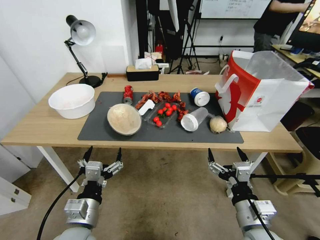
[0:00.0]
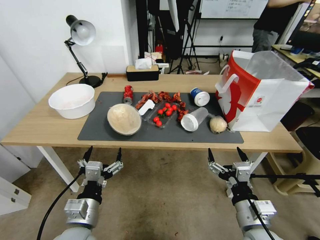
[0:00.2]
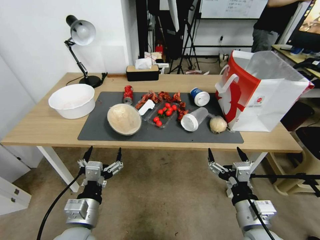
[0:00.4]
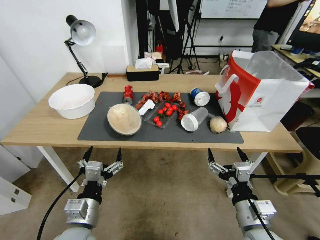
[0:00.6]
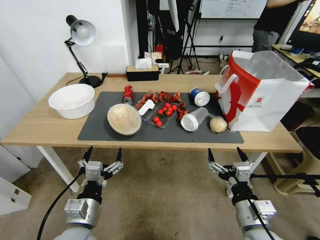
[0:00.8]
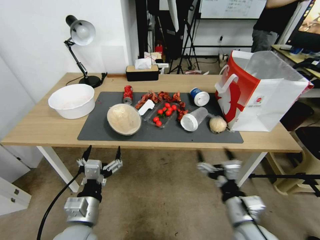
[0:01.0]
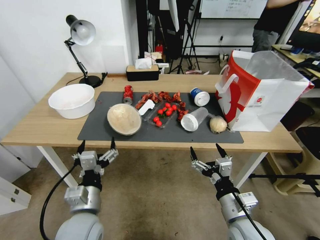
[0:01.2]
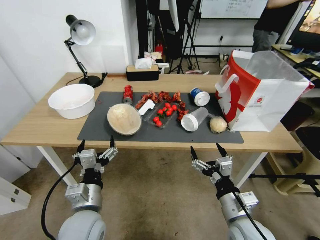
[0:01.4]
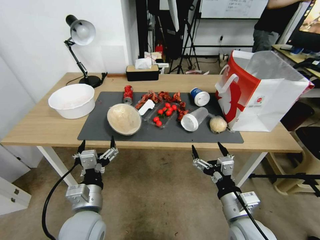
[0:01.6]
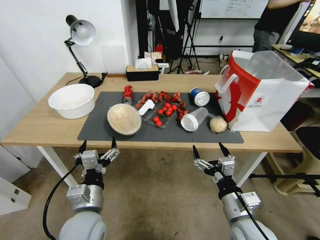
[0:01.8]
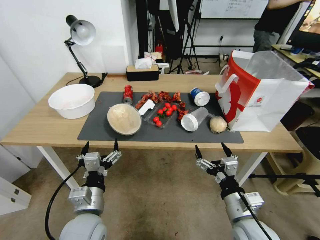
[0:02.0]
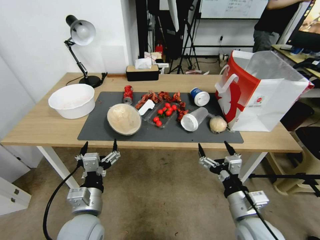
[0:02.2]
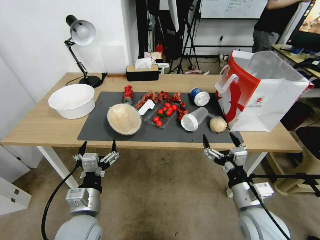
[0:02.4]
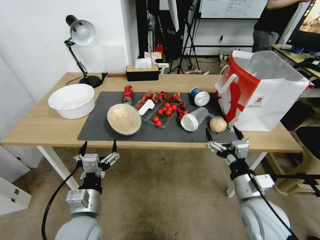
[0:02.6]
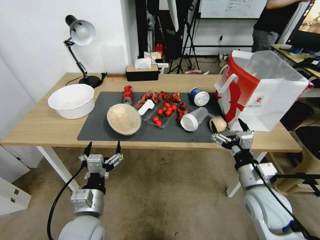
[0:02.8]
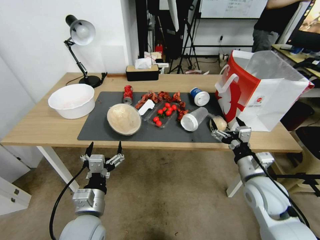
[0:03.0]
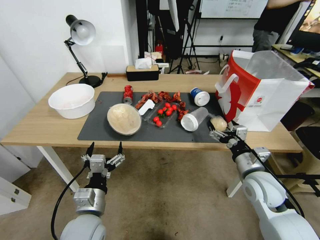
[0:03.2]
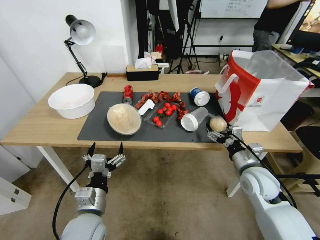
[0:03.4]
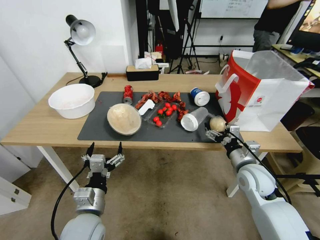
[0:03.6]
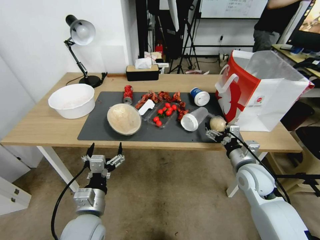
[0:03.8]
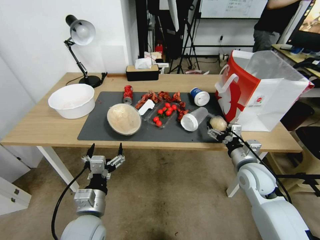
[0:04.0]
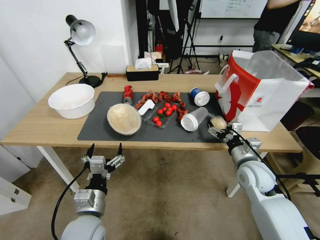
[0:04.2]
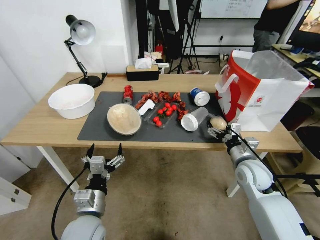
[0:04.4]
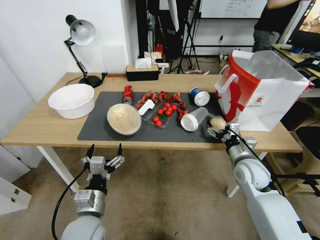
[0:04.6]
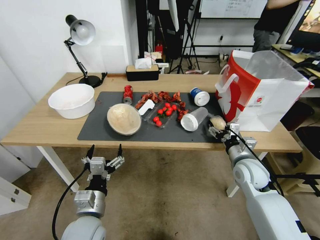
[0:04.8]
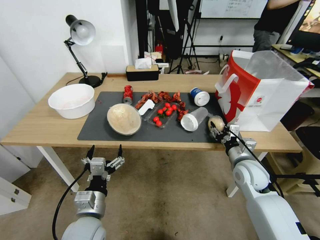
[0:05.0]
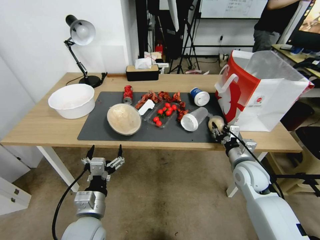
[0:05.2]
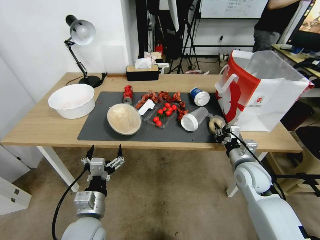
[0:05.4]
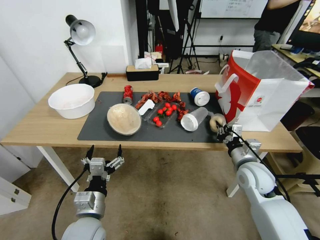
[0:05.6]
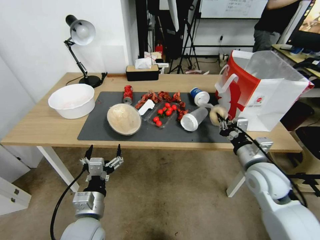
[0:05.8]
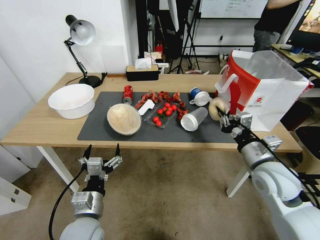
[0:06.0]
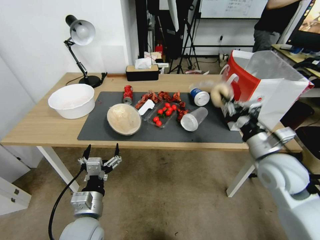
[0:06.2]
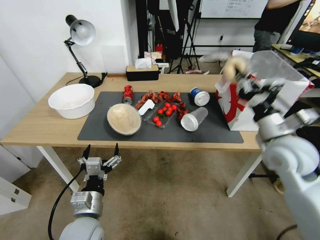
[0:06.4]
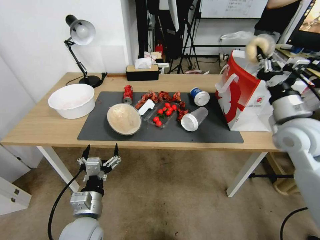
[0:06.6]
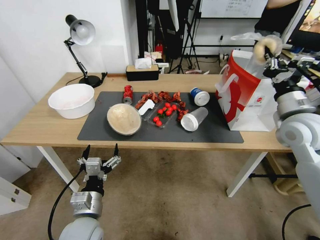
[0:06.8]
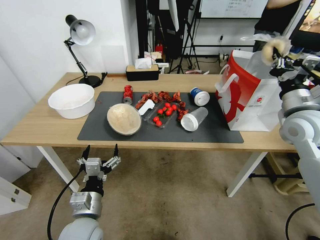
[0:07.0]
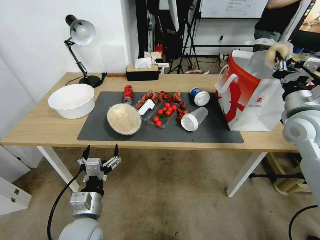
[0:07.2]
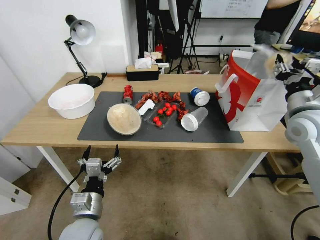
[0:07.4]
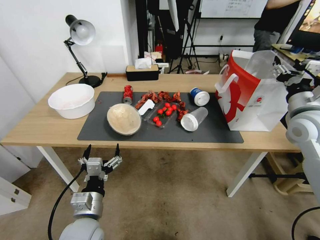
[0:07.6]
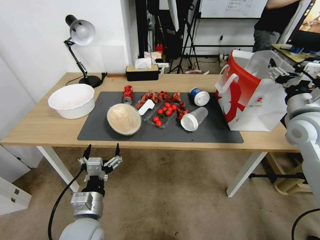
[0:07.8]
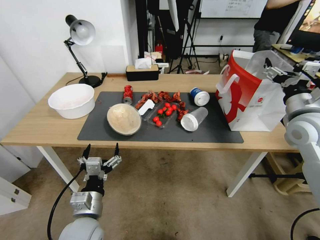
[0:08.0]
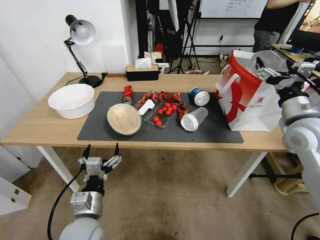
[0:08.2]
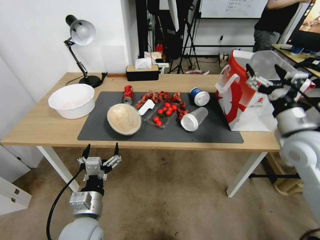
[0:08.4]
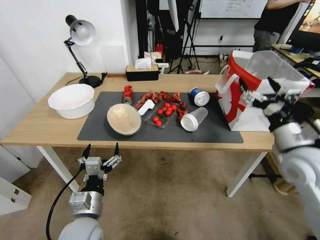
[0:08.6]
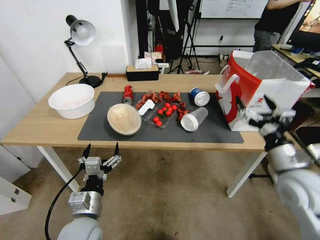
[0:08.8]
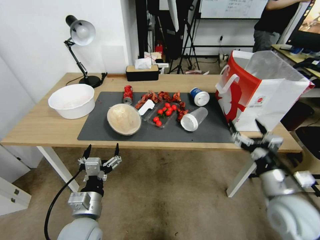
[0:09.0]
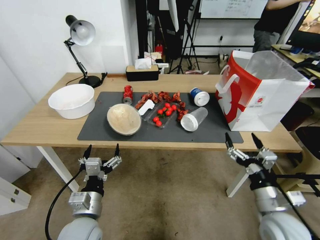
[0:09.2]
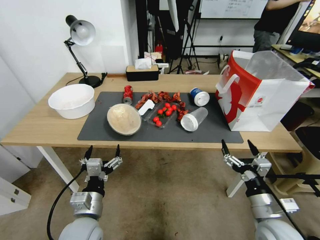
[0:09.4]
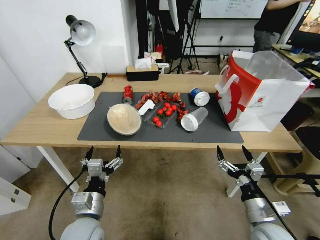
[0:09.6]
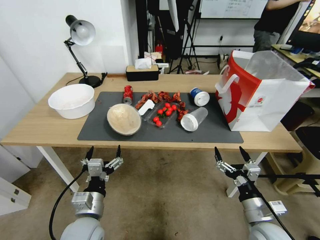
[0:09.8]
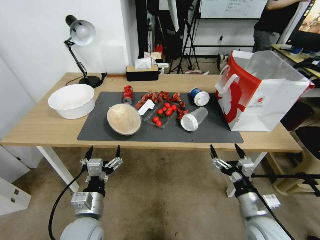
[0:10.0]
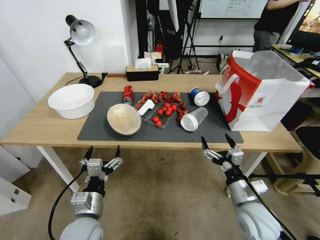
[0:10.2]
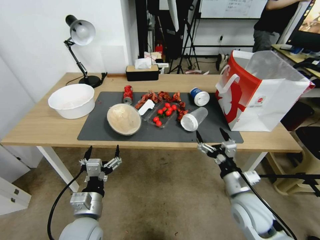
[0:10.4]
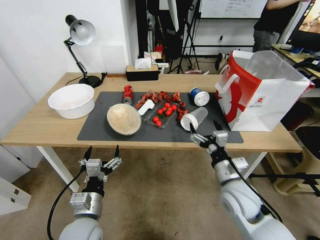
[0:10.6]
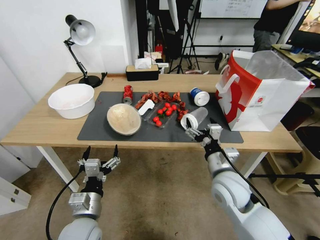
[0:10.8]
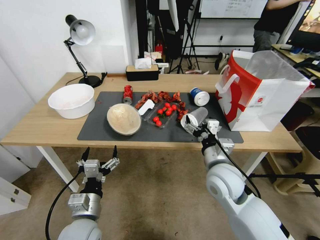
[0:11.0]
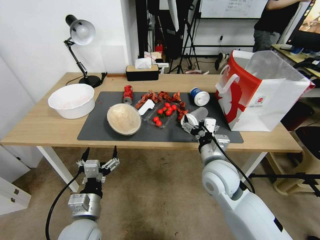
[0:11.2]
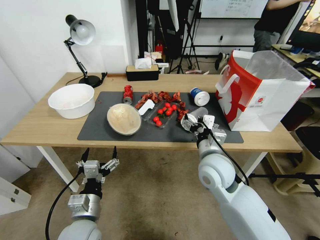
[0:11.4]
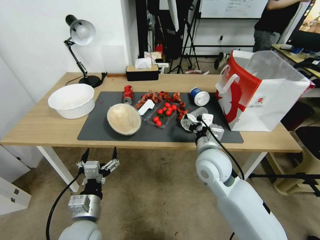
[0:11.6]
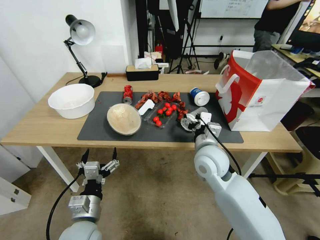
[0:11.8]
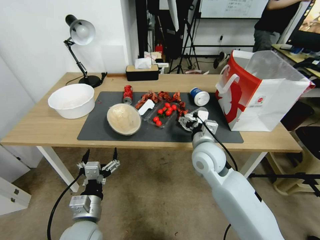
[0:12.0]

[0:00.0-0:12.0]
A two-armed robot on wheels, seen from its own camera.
0:01.6 to 0:03.0: The right gripper shifts approximately 10 cm forward and to the right.
0:03.0 to 0:04.4: The right gripper shifts about 5 cm forward.
0:04.4 to 0:06.0: The right gripper heads upward, covering about 5 cm, and closes.
0:06.0 to 0:07.6: The right gripper heads upward, to the right and forward, covering some 20 cm, and opens its fingers.
0:07.6 to 0:09.0: The right gripper shifts roughly 20 cm backward and downward, and opens up.
0:09.0 to 0:10.4: The right gripper moves downward and to the left, about 10 cm.
0:10.4 to 0:12.0: The right gripper shifts about 25 cm forward, to the left and upward.

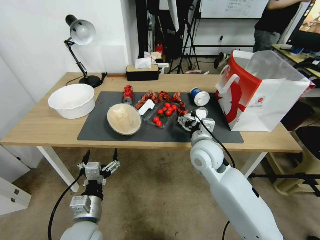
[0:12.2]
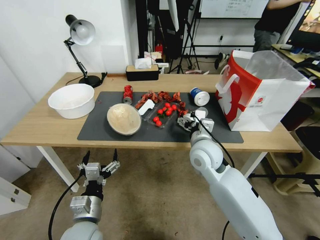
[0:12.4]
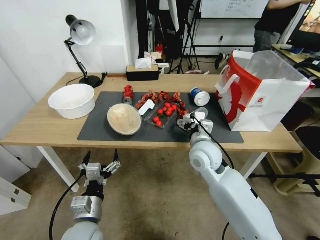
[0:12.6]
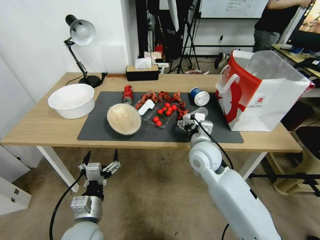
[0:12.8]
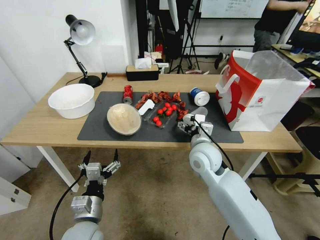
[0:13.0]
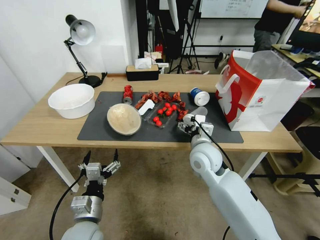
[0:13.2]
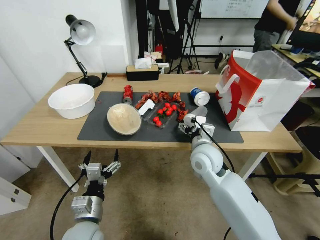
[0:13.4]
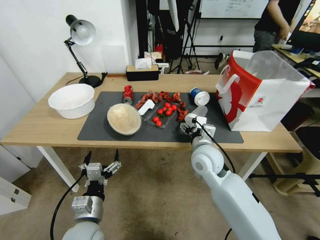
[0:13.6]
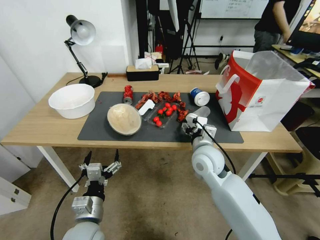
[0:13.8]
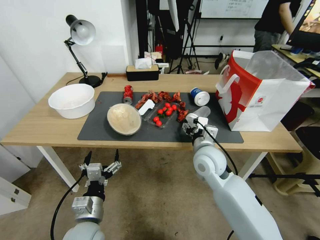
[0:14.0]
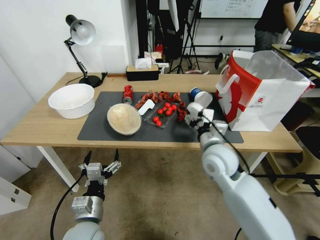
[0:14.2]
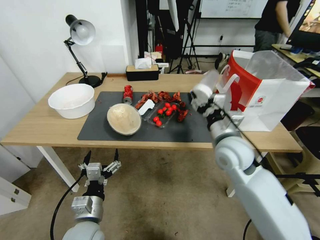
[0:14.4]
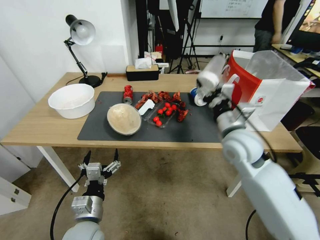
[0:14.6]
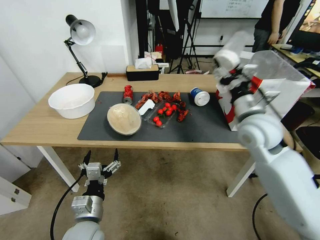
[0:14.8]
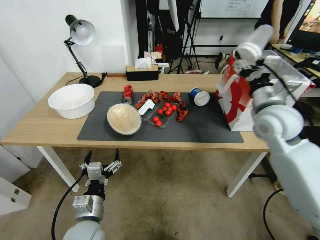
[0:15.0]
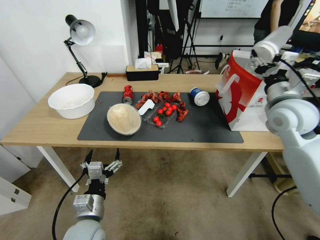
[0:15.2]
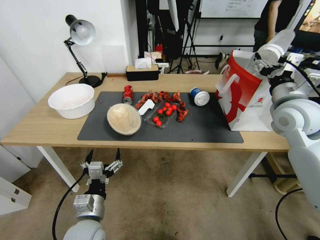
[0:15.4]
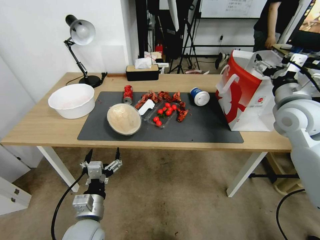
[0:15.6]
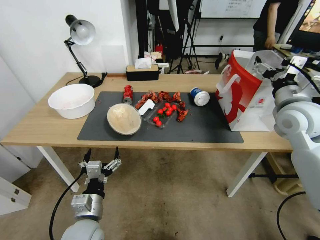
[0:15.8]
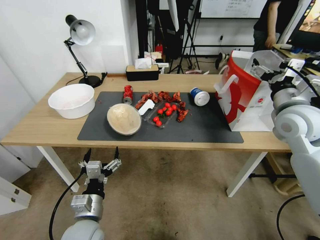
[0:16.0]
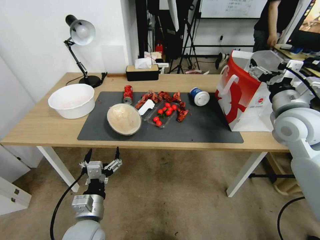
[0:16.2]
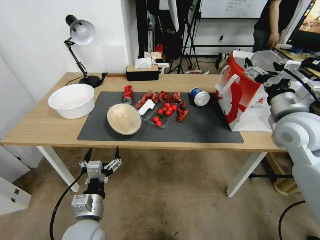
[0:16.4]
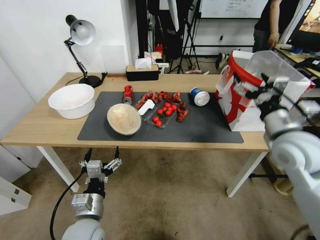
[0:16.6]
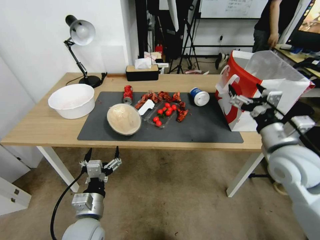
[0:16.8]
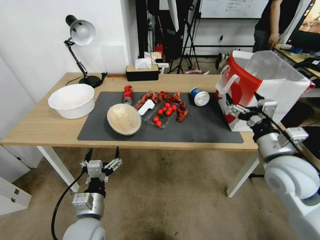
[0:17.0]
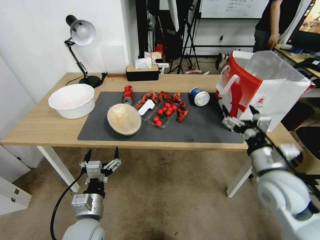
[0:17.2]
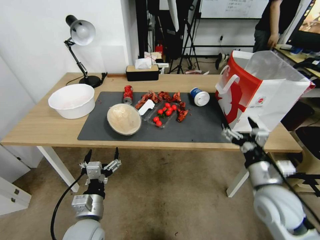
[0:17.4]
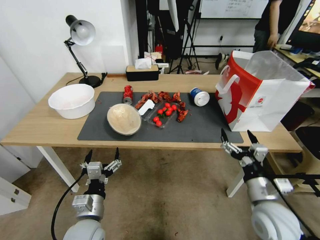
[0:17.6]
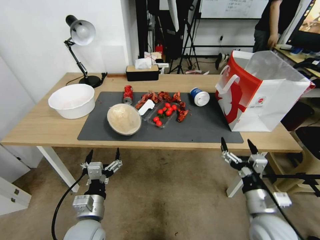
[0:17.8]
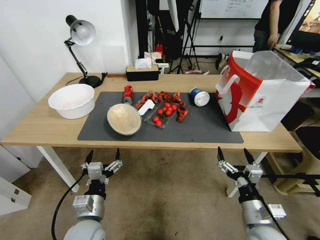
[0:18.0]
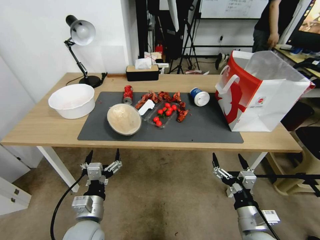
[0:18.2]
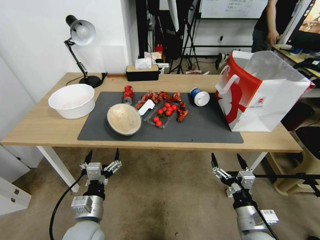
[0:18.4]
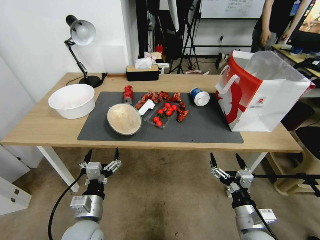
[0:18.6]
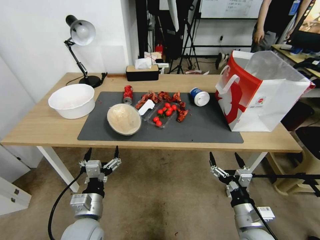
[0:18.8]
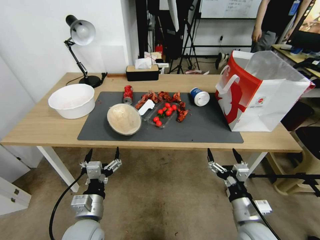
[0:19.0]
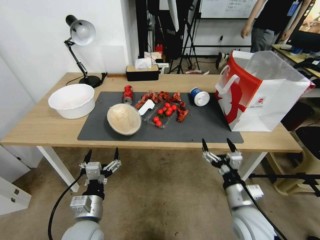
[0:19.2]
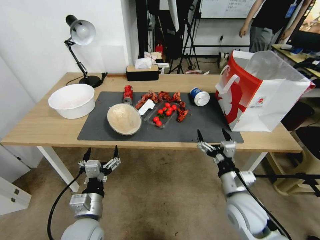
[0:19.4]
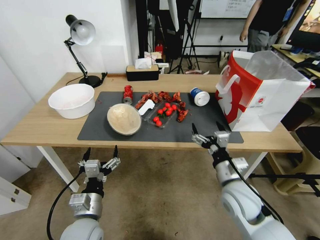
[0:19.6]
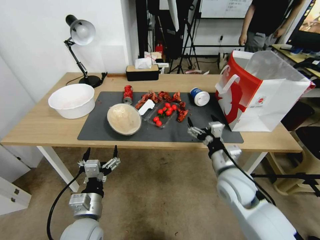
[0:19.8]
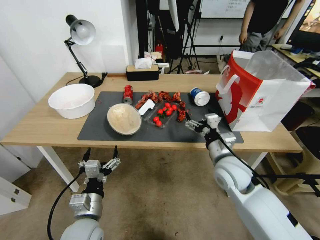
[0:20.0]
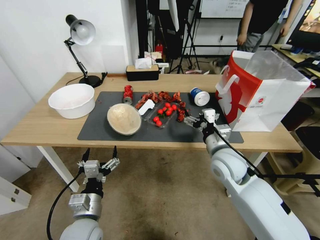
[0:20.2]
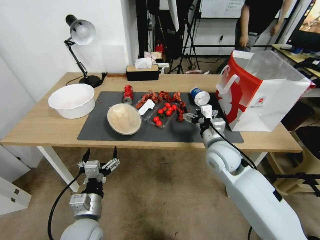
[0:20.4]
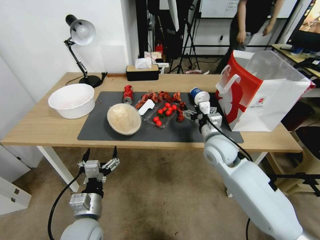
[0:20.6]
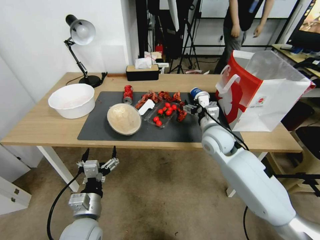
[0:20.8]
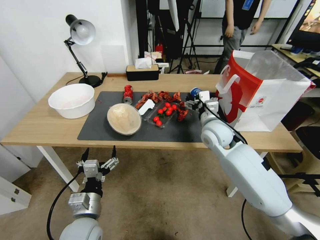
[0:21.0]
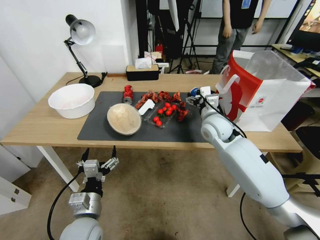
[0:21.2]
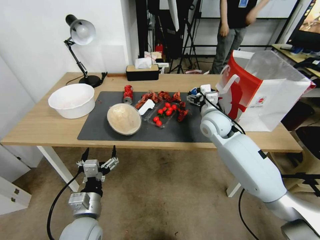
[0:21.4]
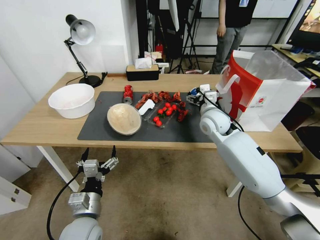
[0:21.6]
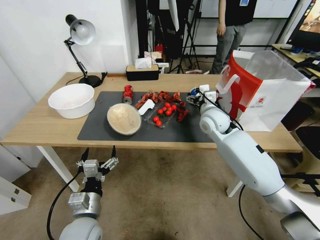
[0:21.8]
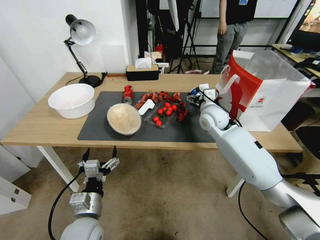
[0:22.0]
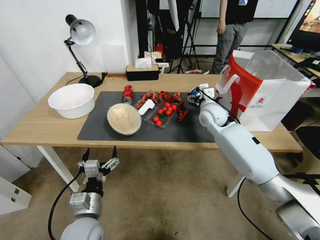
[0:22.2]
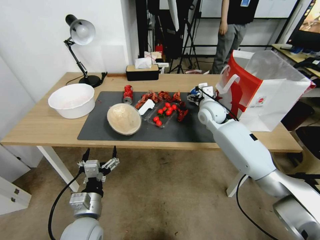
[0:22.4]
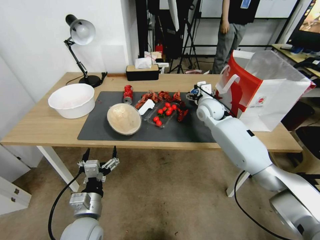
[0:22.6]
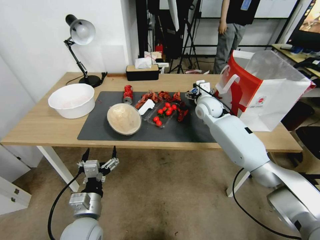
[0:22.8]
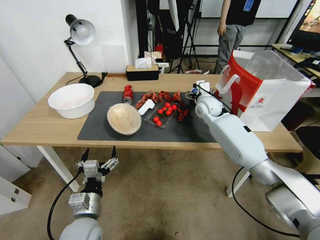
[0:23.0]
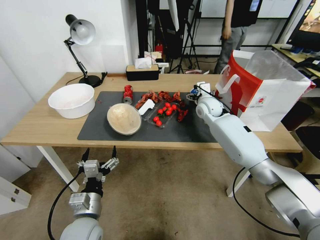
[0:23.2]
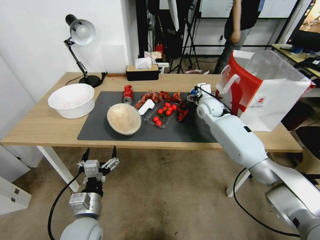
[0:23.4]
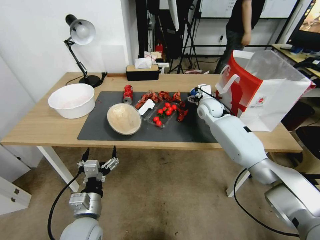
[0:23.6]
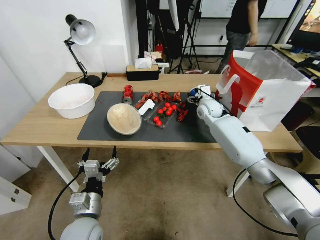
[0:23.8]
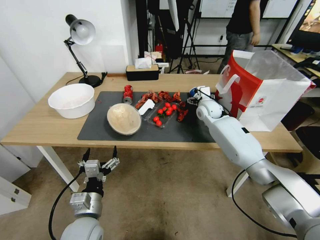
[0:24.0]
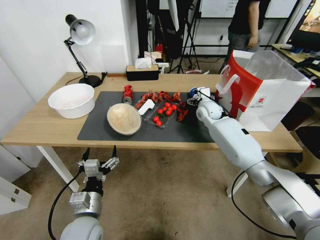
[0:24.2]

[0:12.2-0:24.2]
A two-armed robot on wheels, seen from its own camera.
0:12.2 to 0:13.8: The right gripper closes up.
0:13.8 to 0:15.2: The right gripper shifts about 25 cm to the right and upward.
0:15.2 to 0:16.6: The right gripper shifts approximately 5 cm backward, and opens up.
0:16.6 to 0:18.2: The right gripper heads downward and backward, covering roughly 30 cm.
0:18.2 to 0:19.8: The right gripper goes some 15 cm forward, upward and to the left.
0:19.8 to 0:21.2: The right gripper moves forward and upward, roughly 20 cm.
0:21.2 to 0:22.6: The right gripper is displaced forward by approximately 10 cm.
0:22.6 to 0:24.2: The grippers move only a little.
